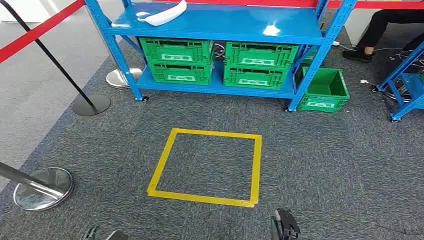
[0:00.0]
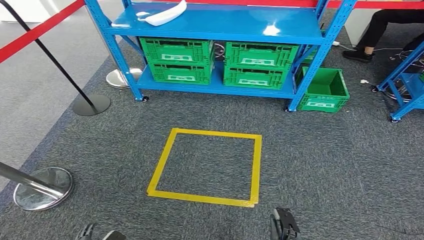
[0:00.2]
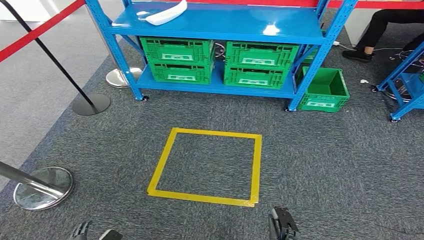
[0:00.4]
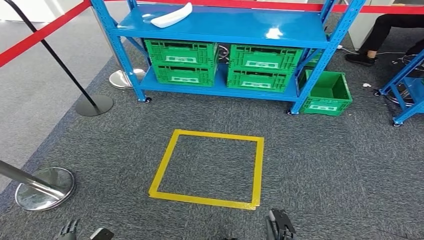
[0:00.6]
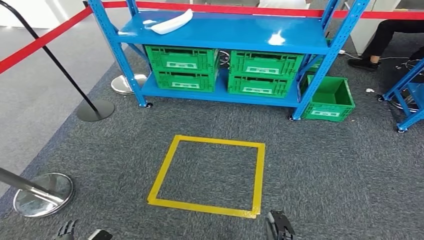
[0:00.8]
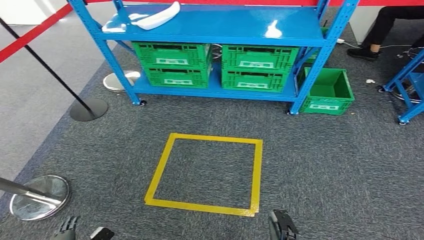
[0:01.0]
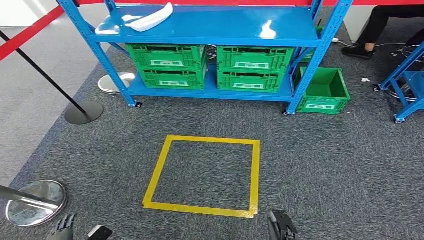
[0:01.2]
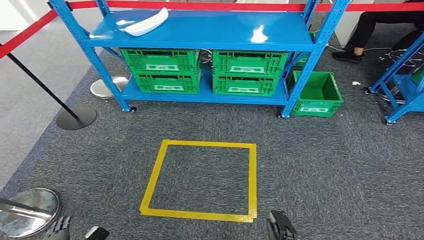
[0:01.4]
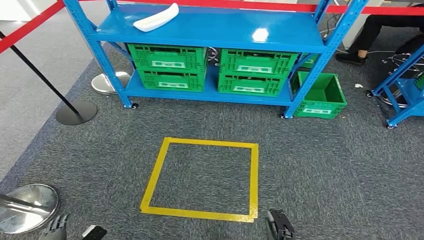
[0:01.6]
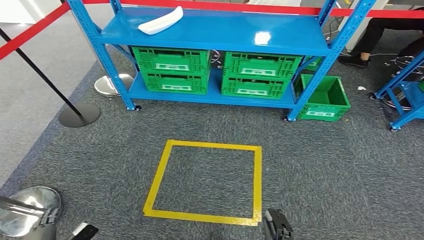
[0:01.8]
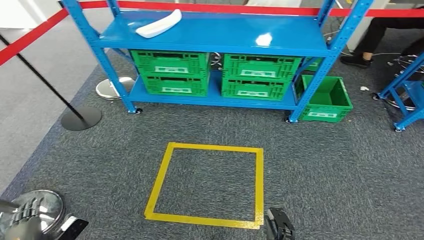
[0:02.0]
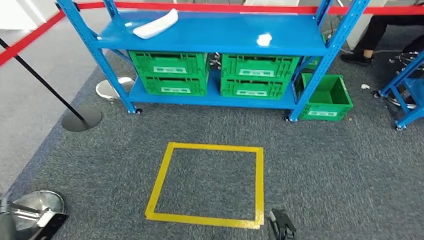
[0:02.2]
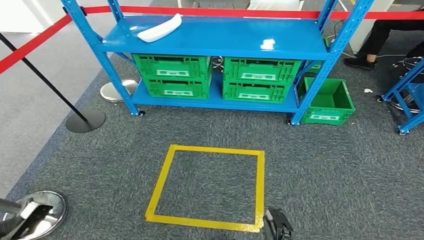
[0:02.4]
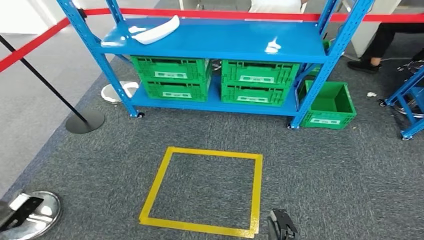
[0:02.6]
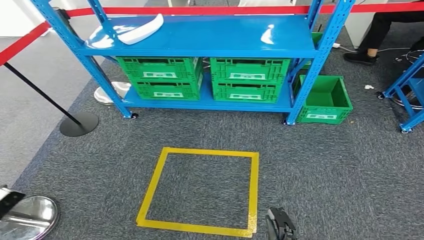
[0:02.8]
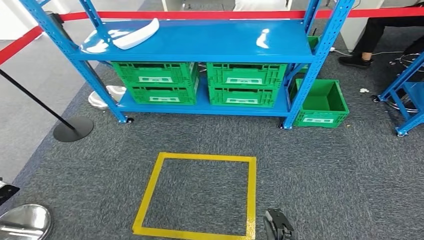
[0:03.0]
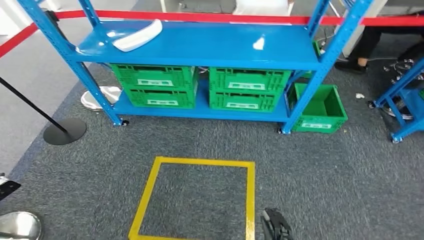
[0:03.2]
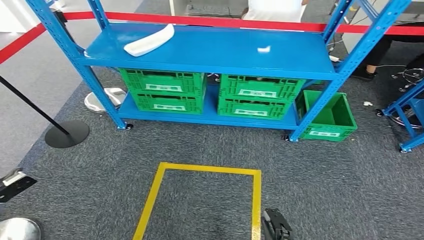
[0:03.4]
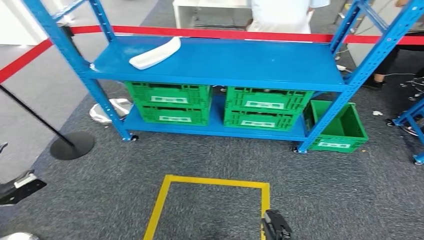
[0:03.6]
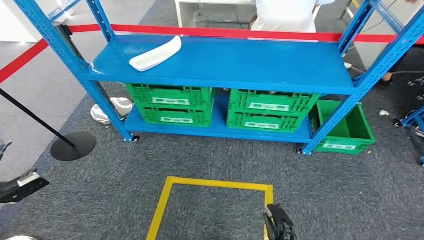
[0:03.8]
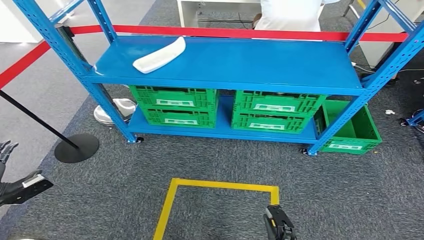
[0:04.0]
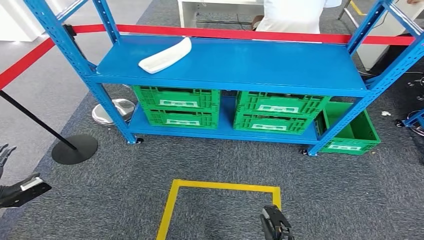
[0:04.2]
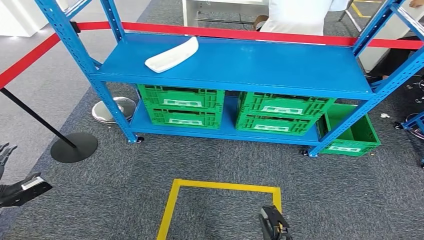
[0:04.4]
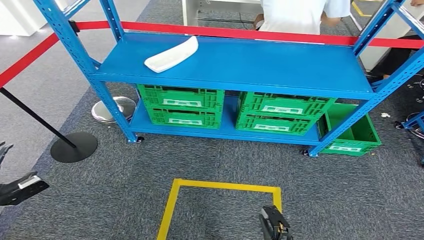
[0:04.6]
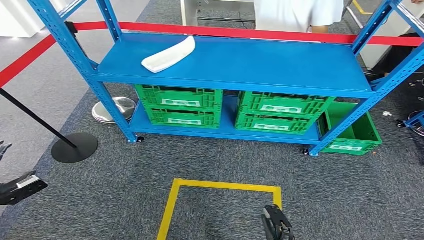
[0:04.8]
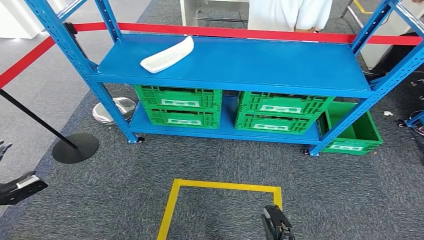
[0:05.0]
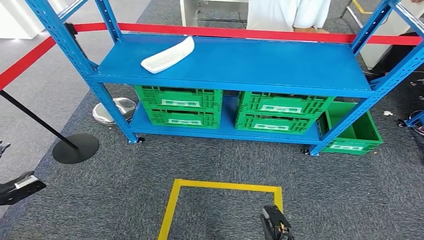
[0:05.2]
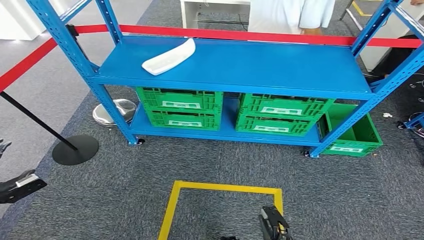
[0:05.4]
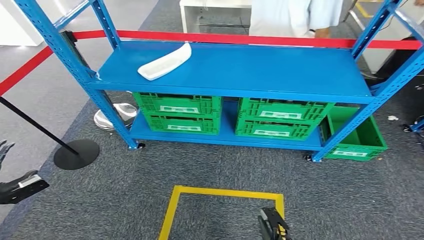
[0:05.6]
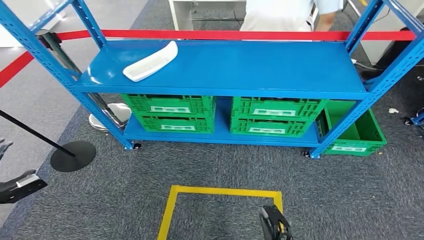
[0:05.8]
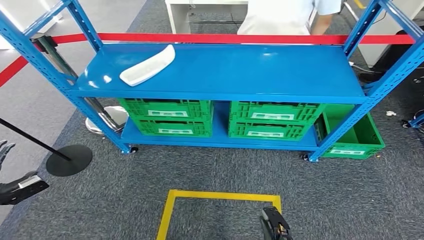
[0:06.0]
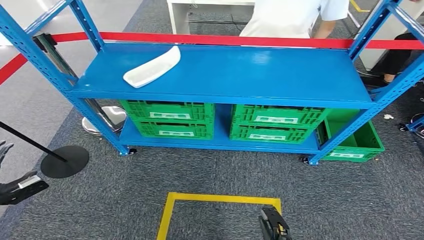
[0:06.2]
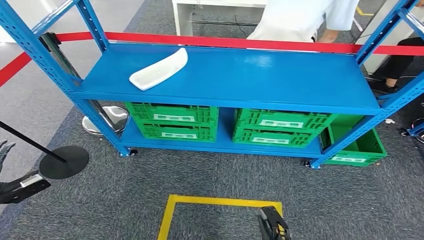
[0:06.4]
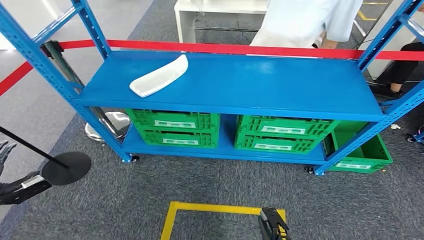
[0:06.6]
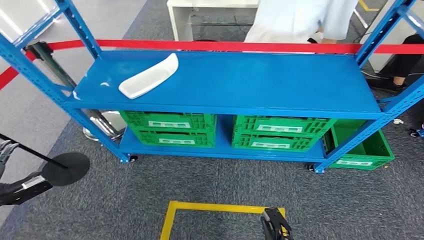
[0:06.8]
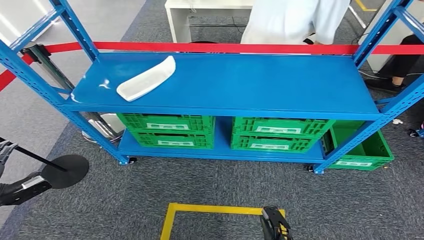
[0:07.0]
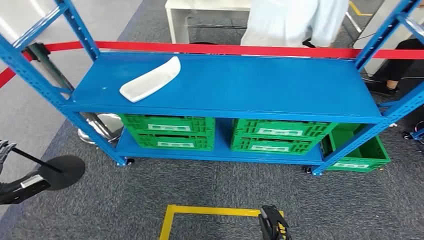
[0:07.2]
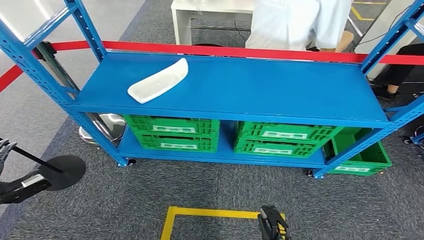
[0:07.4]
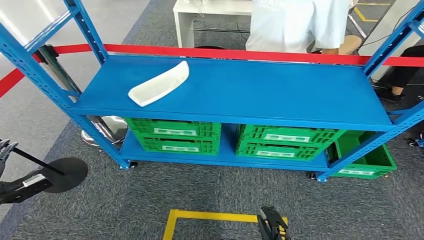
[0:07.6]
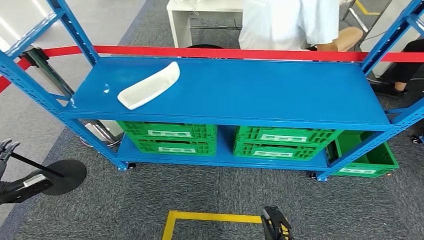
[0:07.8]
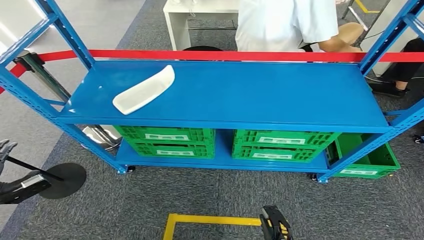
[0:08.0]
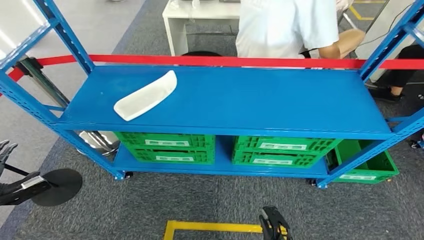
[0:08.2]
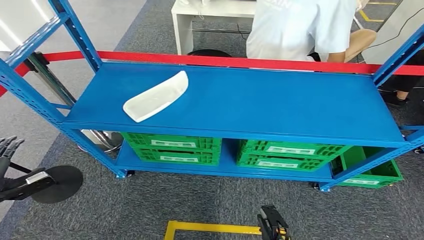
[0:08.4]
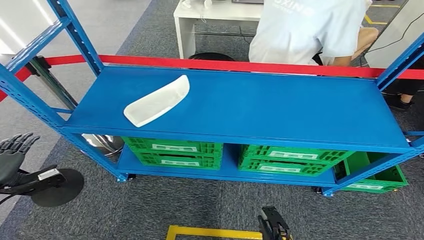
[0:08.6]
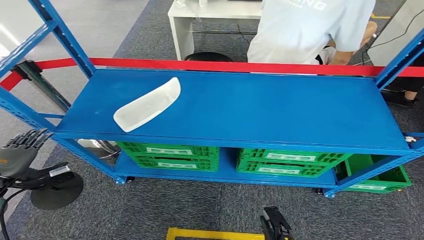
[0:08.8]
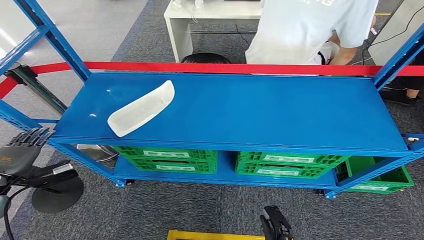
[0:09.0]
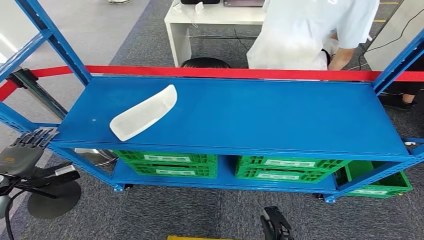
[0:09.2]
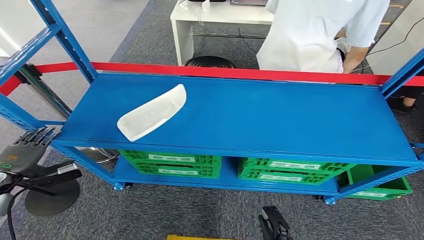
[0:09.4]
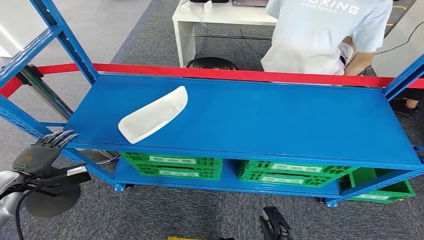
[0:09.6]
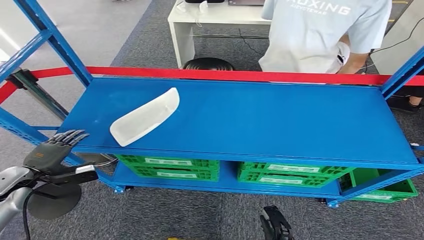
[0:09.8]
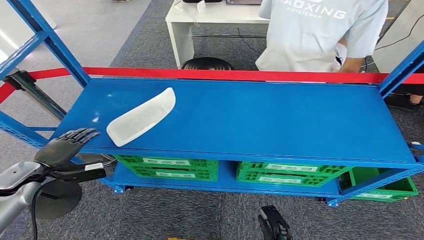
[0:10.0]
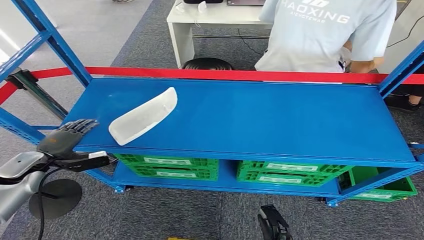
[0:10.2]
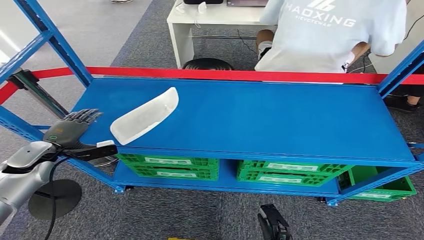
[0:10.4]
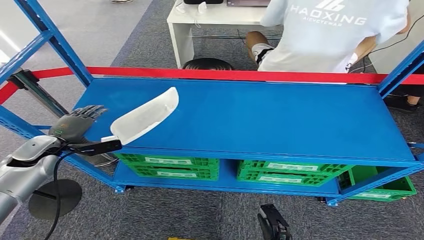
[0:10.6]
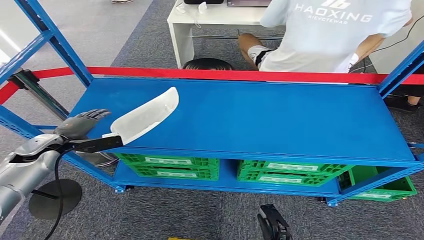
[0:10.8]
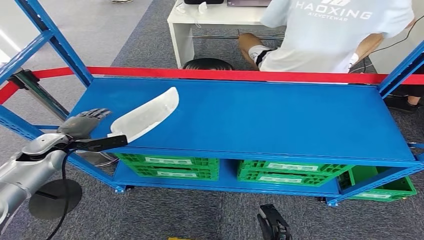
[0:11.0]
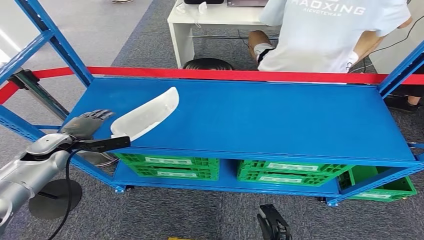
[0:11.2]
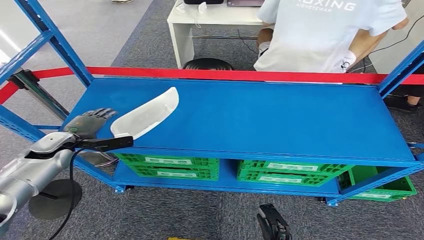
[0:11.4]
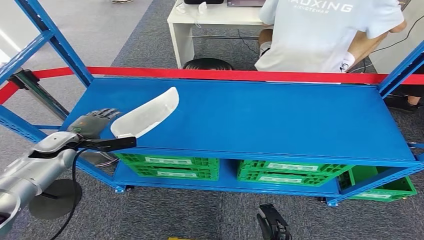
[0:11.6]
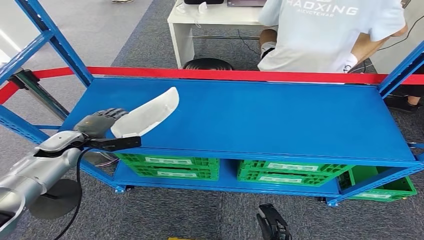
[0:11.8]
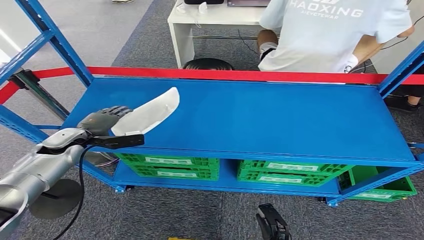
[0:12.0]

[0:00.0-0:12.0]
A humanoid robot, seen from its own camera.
0:10.4 to 0:12.0: The left hand moves to the right, roughly 5 cm.

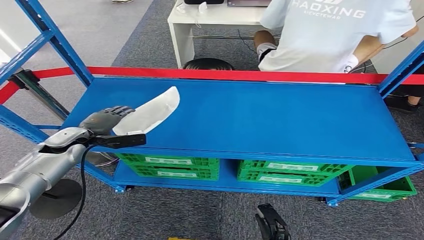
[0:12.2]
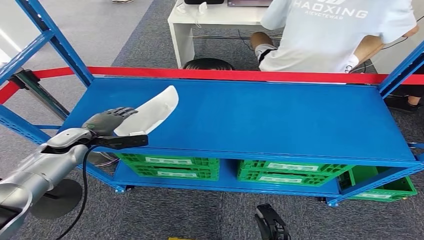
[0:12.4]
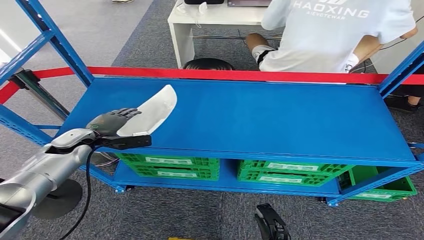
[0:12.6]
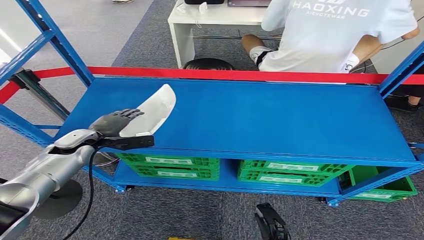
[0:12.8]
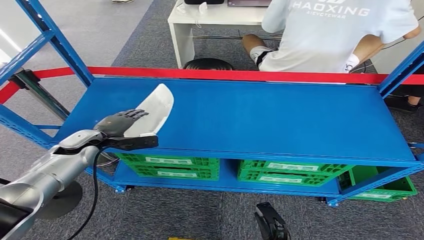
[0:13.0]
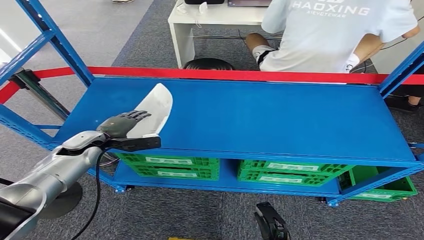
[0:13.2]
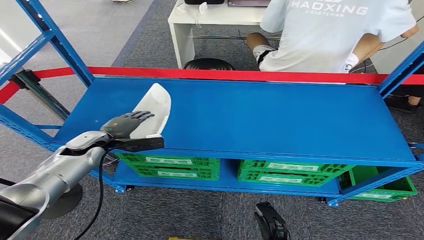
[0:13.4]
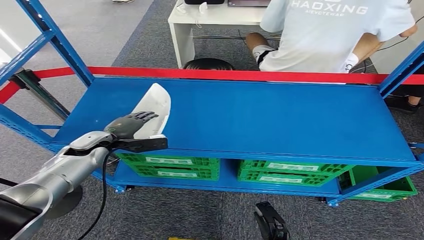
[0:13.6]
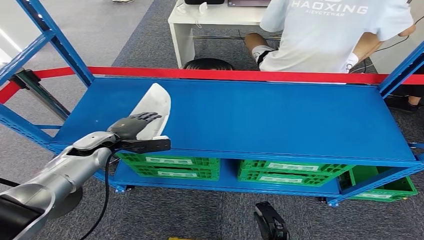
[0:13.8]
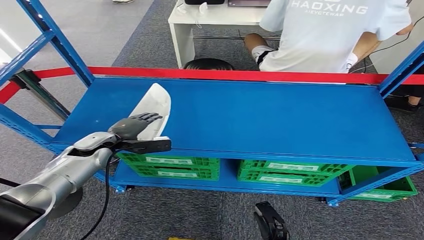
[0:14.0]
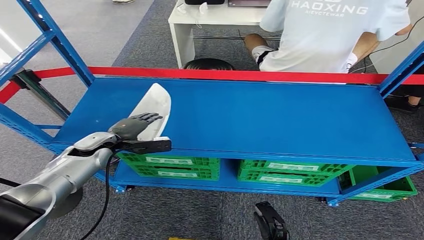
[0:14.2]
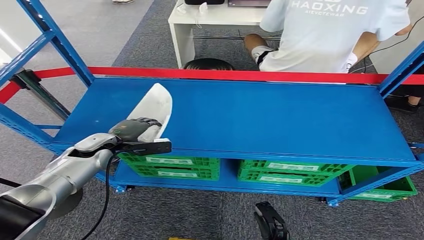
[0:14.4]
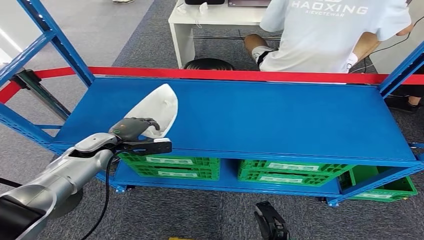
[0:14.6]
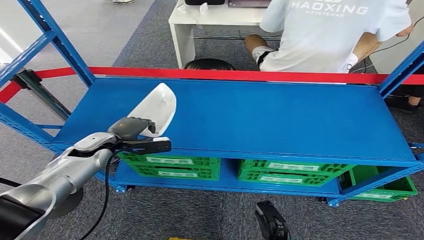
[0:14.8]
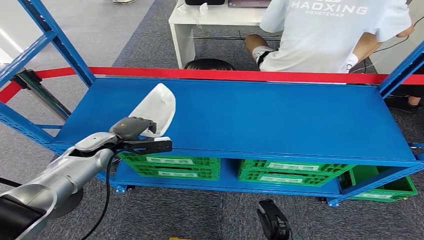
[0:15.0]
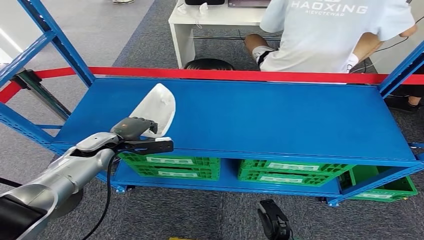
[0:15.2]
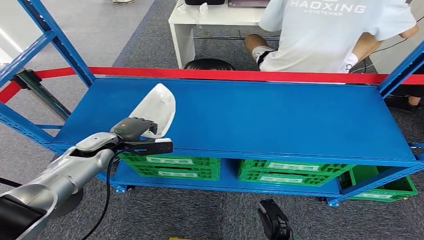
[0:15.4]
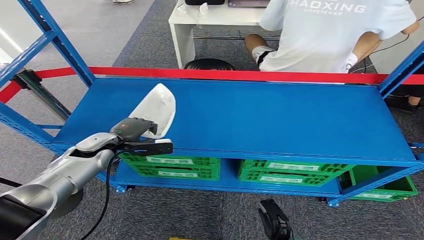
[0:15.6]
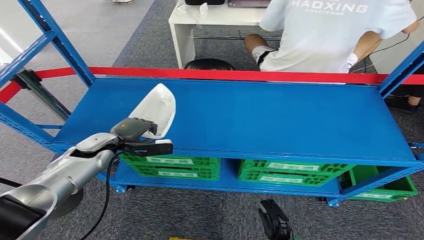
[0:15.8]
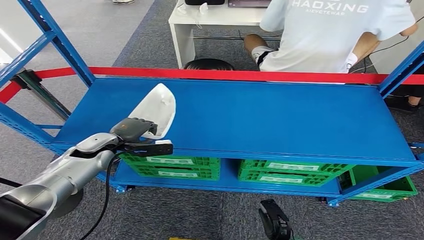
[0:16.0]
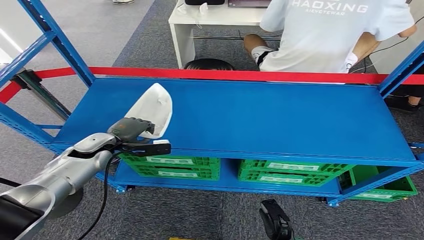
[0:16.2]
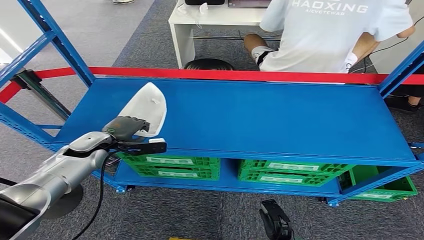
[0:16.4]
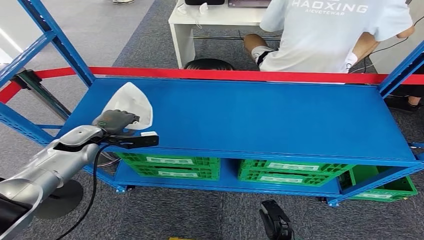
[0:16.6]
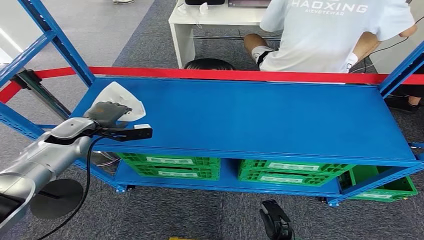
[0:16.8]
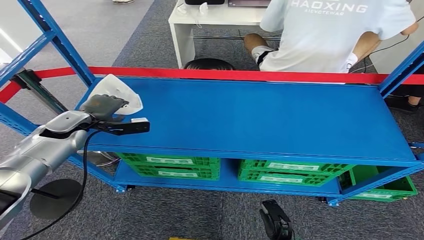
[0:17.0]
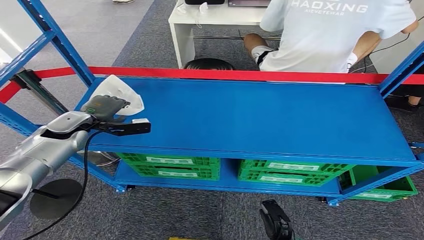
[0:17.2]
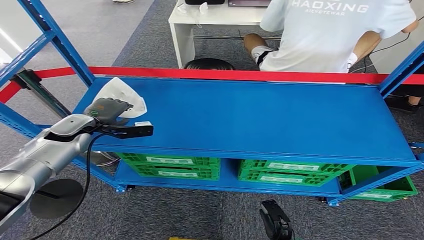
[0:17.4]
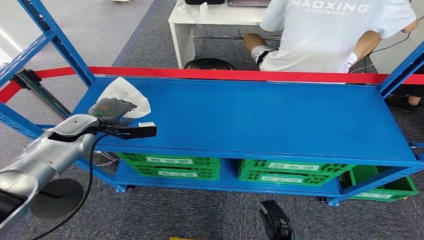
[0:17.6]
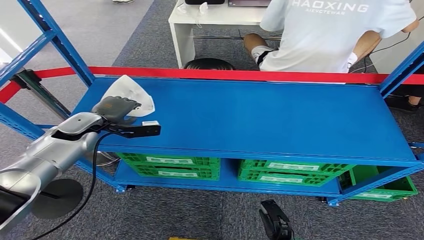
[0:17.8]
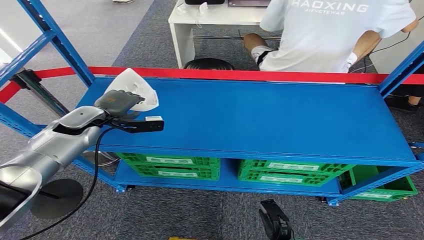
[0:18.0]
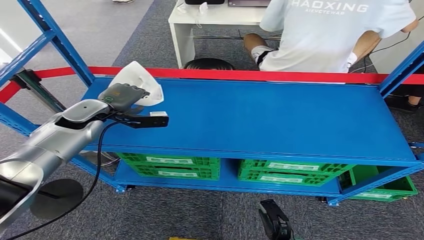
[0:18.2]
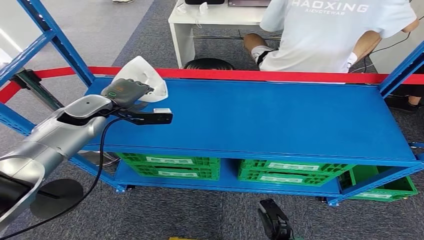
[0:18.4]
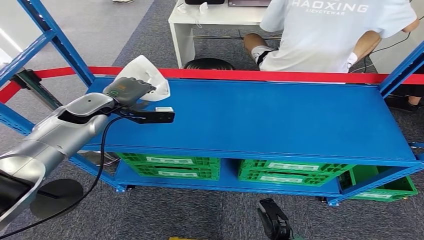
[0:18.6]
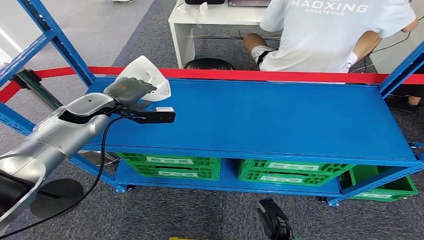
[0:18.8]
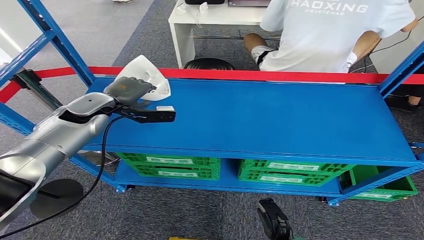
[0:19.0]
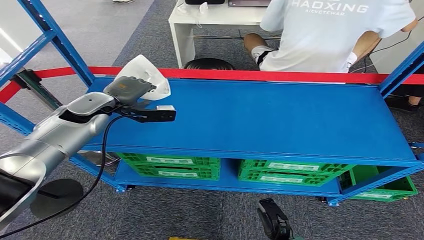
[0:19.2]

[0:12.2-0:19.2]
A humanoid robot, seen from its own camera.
0:12.2 to 0:13.6: The left hand shifts some 5 cm to the right.
0:13.6 to 0:15.0: Both hands stay put.
0:15.0 to 0:16.4: The hands make only small movements.
0:16.4 to 0:17.8: The left hand goes roughly 5 cm upward.
0:17.8 to 0:19.2: The left hand heads upward, covering approximately 5 cm.
